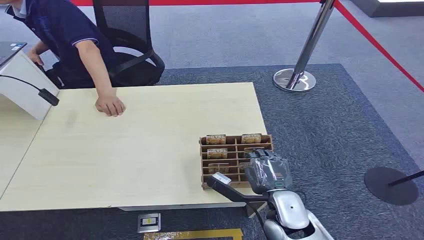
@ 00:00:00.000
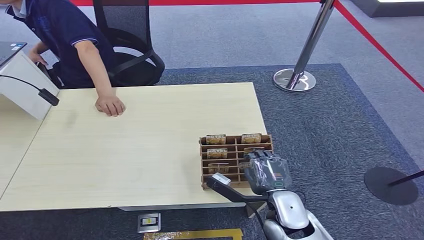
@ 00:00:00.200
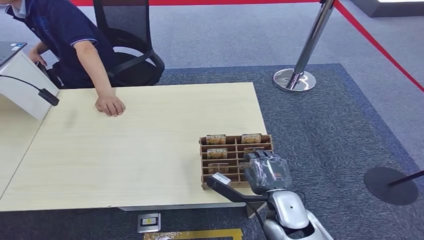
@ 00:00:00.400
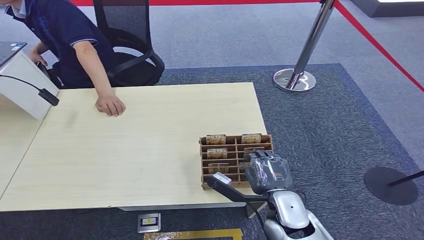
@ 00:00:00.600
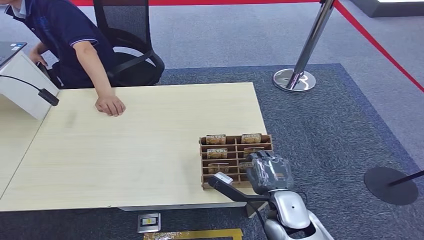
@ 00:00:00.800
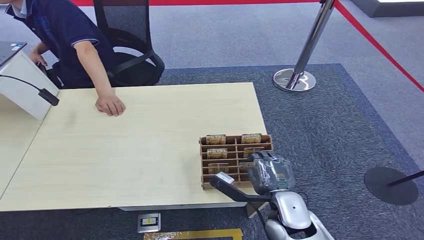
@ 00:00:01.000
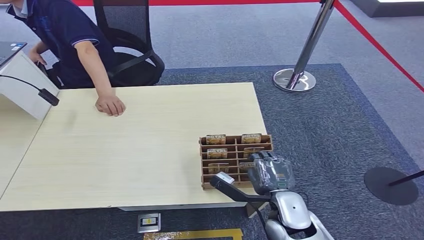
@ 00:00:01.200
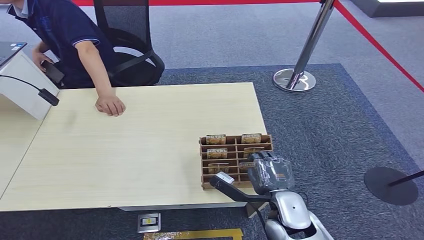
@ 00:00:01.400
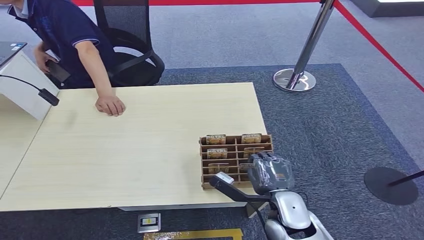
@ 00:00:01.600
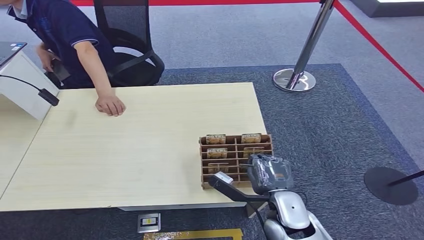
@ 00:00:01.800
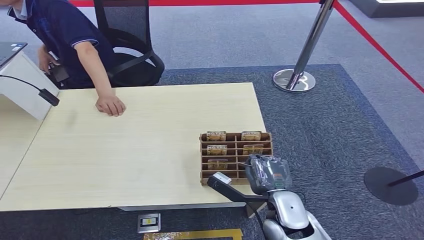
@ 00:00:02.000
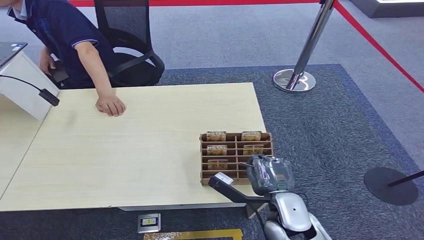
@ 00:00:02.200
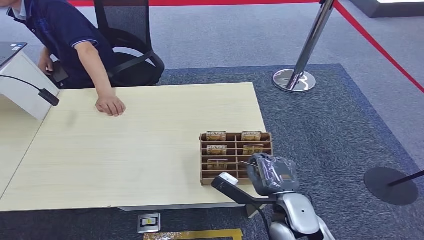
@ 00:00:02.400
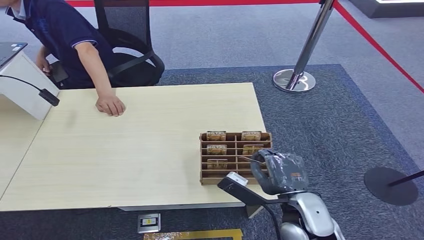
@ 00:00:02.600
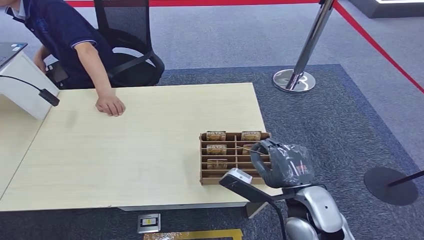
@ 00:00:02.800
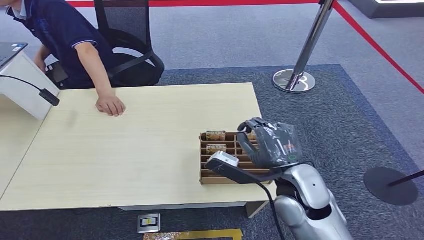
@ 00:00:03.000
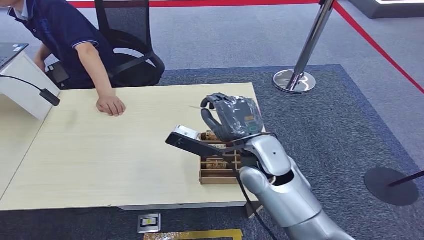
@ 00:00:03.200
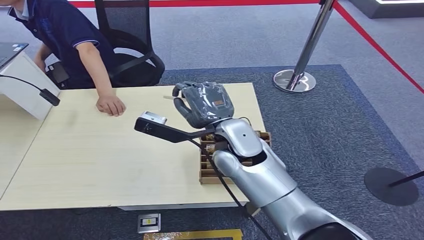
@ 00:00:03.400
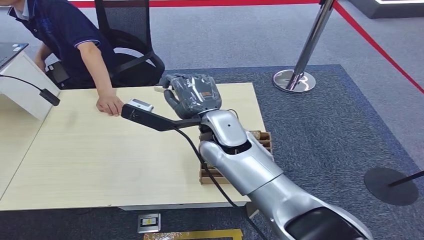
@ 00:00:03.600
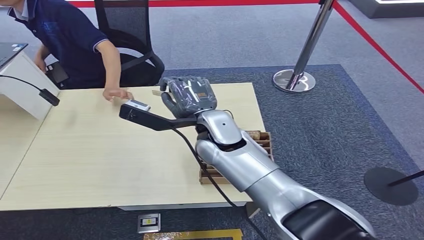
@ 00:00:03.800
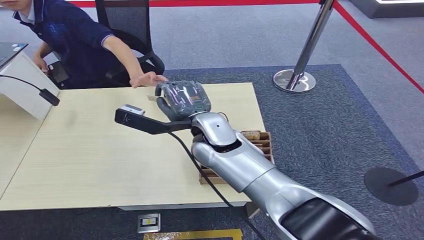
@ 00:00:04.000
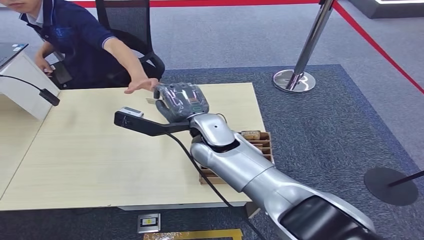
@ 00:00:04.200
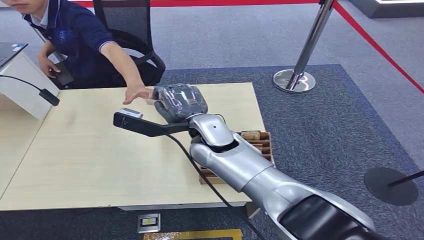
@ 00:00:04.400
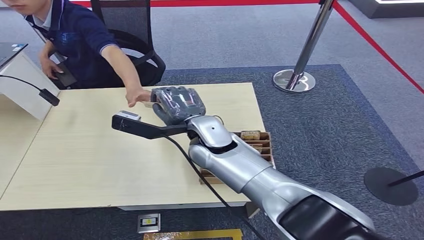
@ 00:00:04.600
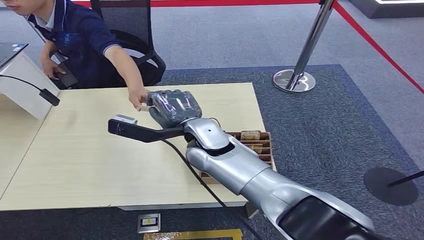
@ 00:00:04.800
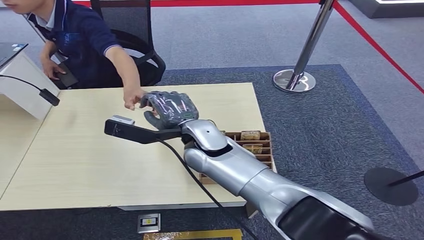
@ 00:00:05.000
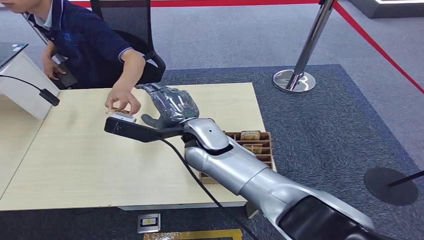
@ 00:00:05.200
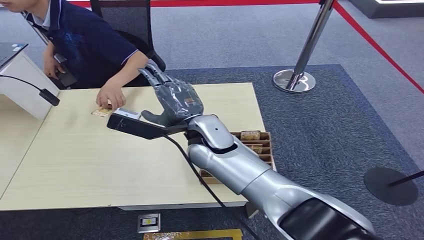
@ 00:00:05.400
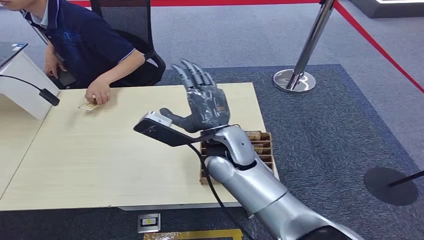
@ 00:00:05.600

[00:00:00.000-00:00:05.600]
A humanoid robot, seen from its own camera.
Step, 00:00:00.000 to 00:00:03.000: Pick up the key card from the card box.
Step, 00:00:03.400 to 00:00:05.600: Hand the key card to the target.
00:00:01.400 to 00:00:02.800: The right hand travels upward by roughly 5 cm.
00:00:02.800 to 00:00:04.200: The right hand travels forward, to the left and upward by some 25 cm.

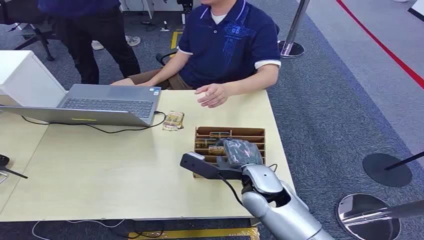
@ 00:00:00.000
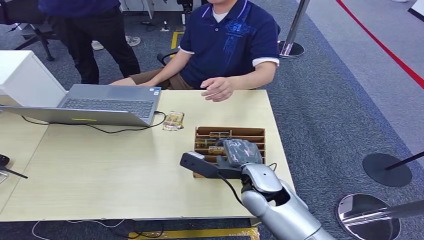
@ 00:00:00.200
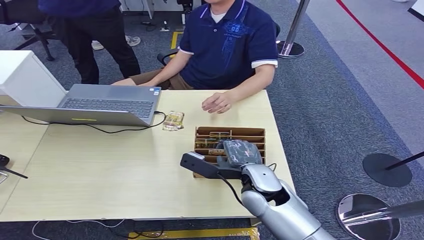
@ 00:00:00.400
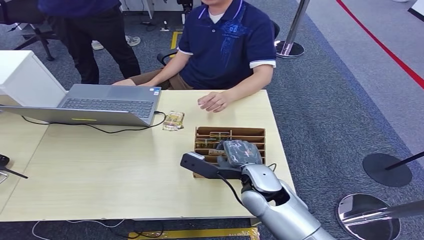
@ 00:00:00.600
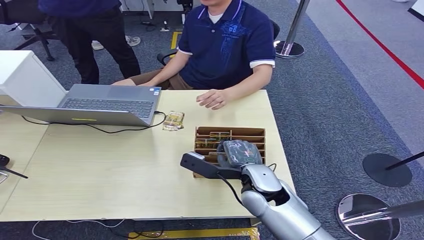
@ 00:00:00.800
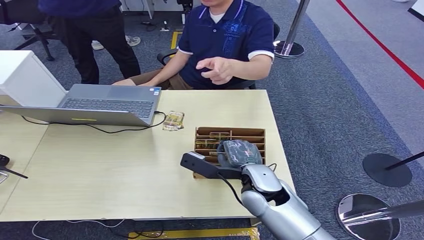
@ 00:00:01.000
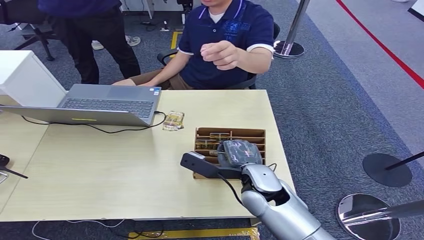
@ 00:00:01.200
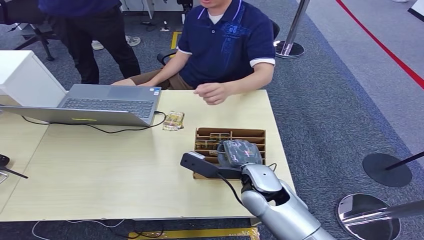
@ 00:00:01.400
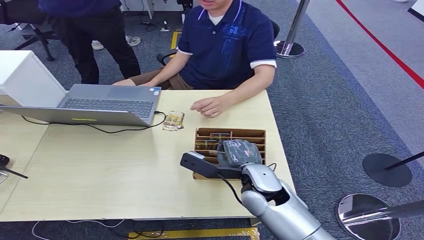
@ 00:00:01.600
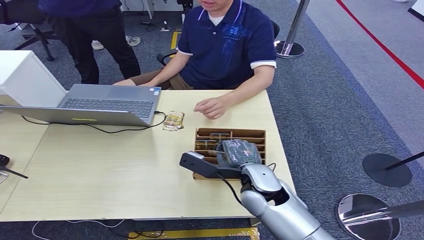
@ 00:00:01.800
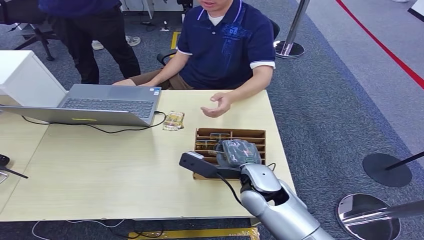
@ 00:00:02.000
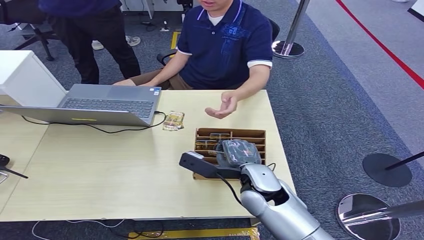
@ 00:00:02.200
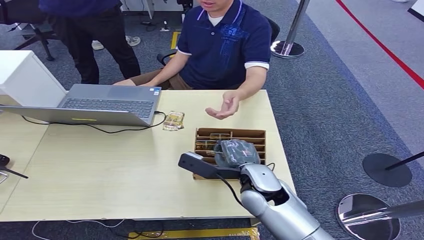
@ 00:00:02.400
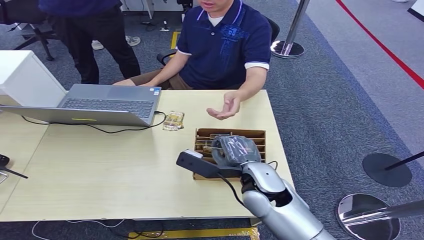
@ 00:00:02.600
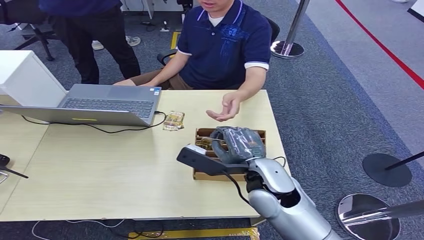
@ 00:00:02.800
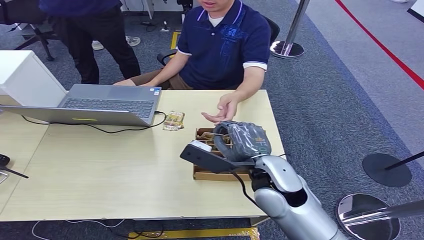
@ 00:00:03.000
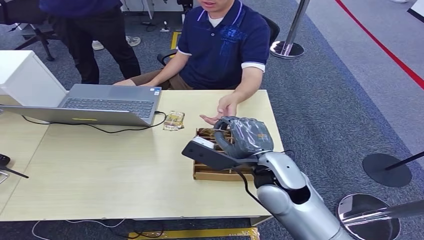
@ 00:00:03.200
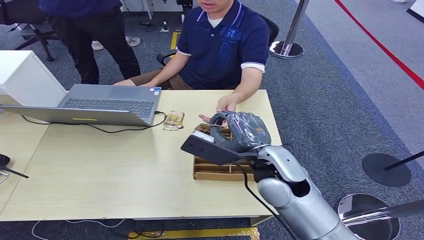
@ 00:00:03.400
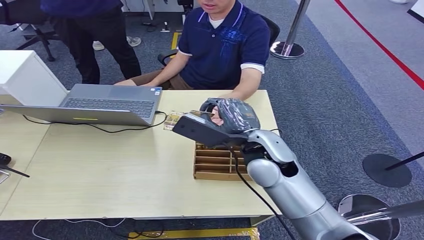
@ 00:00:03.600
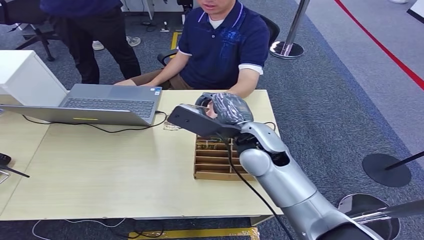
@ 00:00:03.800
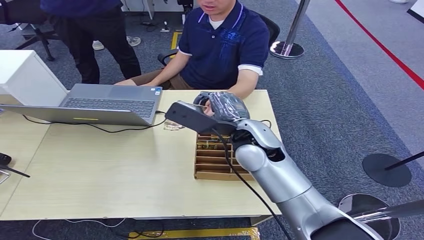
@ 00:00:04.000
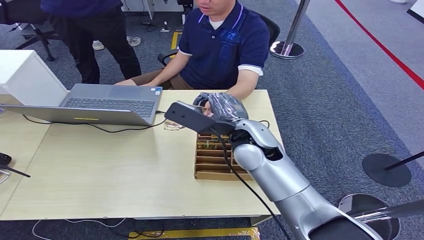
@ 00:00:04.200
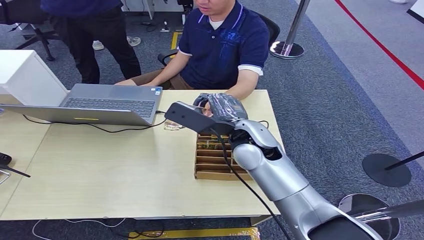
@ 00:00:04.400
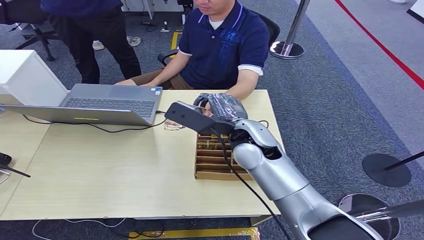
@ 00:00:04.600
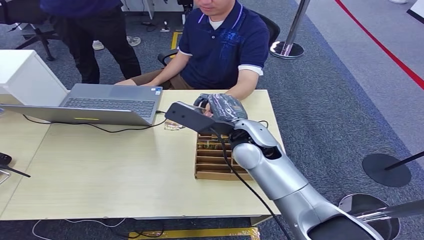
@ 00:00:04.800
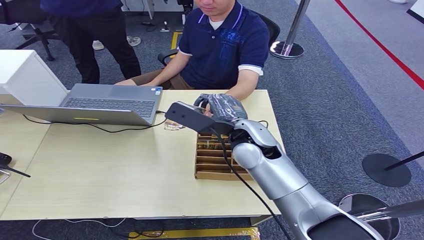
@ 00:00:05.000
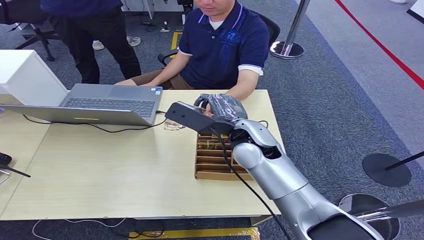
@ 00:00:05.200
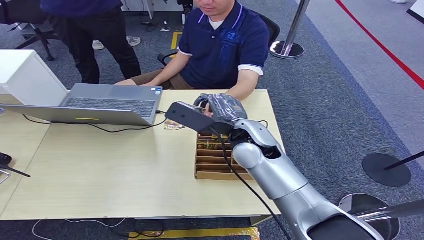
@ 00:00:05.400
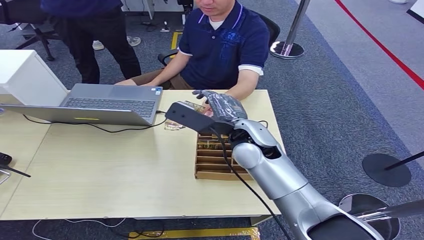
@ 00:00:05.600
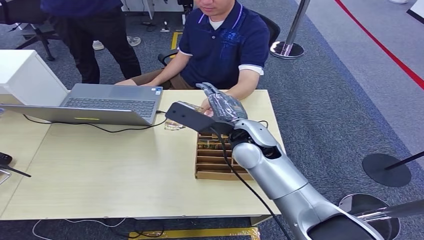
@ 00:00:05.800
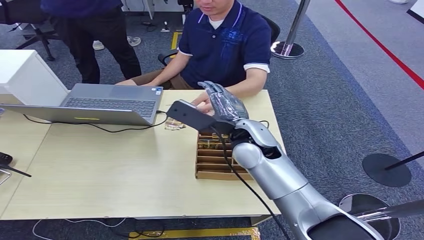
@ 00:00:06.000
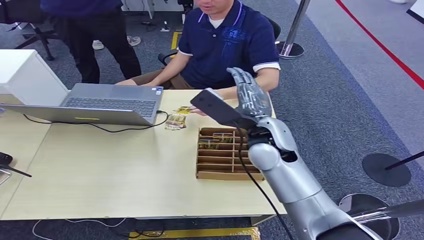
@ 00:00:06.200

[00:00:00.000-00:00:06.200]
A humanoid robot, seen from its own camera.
Step, 00:00:00.000 to 00:00:02.600: Pick up the key card from the card box.
Step, 00:00:02.800 to 00:00:06.000: Hand the key card to the target.
00:00:01.600 to 00:00:03.200: The right hand is displaced upward by roughly 10 cm.
00:00:03.200 to 00:00:04.600: The right hand travels forward by approximately 10 cm.
00:00:04.600 to 00:00:06.200: The hands move only a little.
